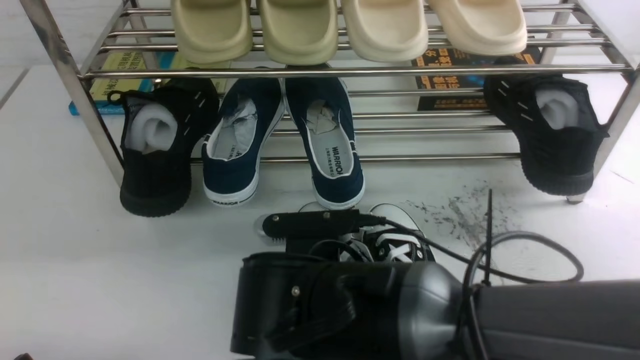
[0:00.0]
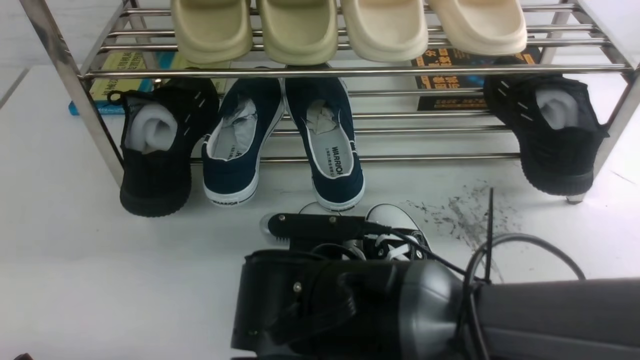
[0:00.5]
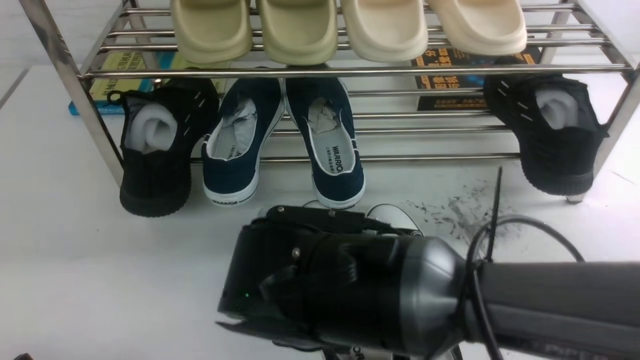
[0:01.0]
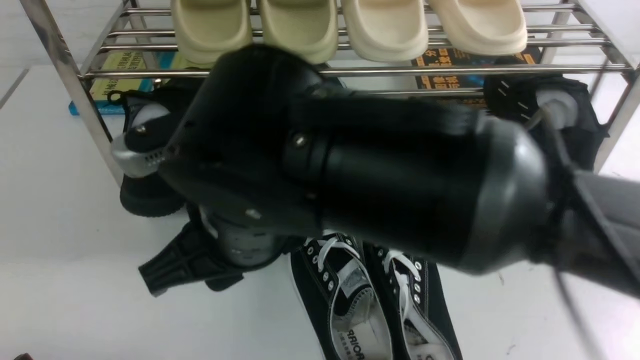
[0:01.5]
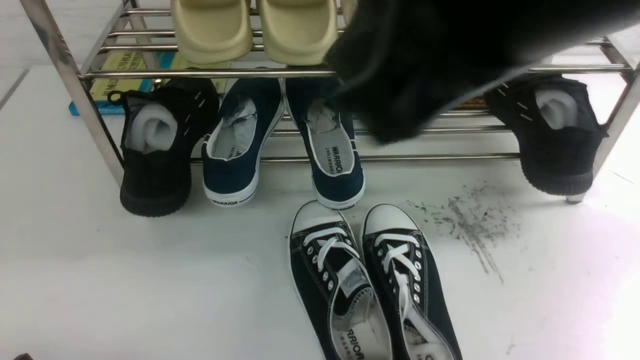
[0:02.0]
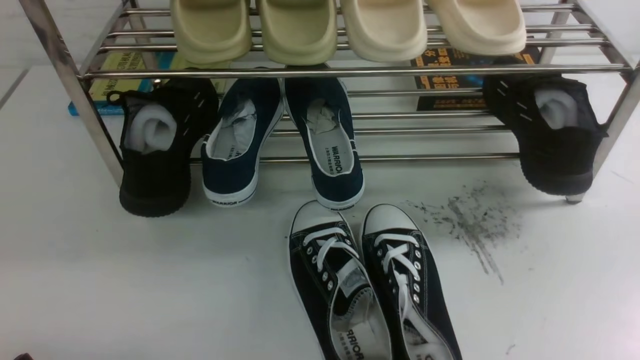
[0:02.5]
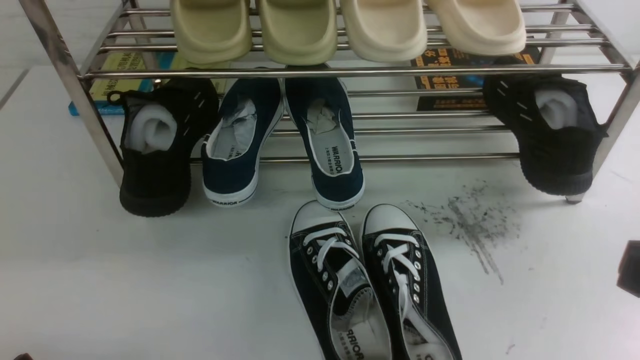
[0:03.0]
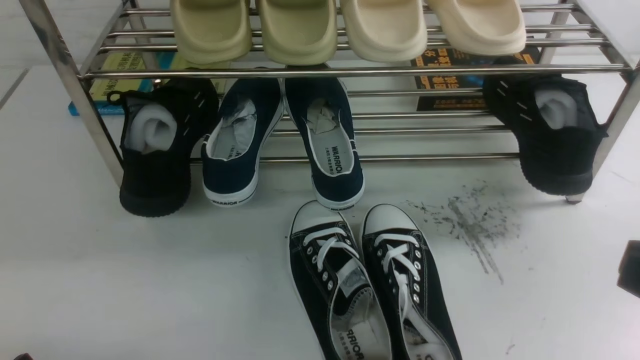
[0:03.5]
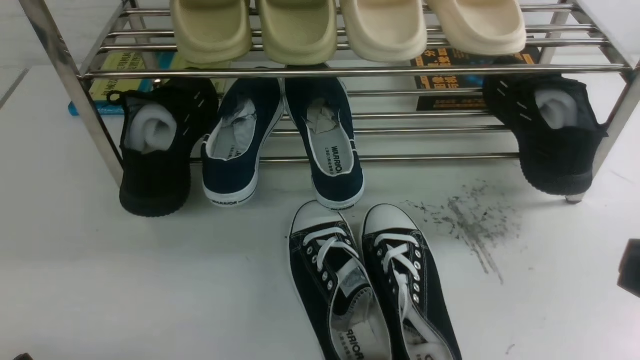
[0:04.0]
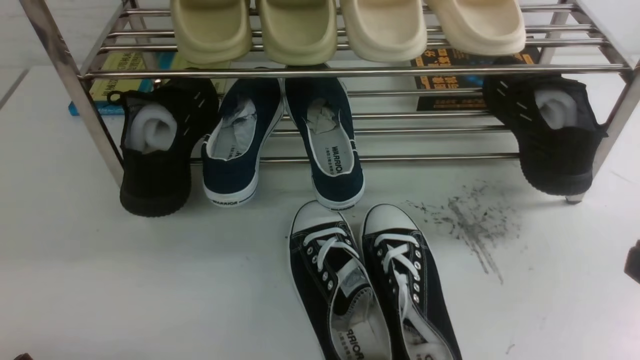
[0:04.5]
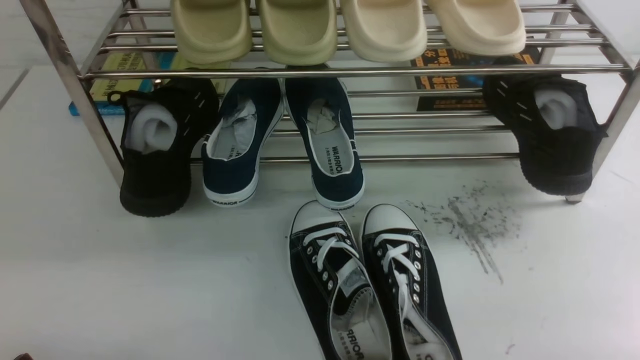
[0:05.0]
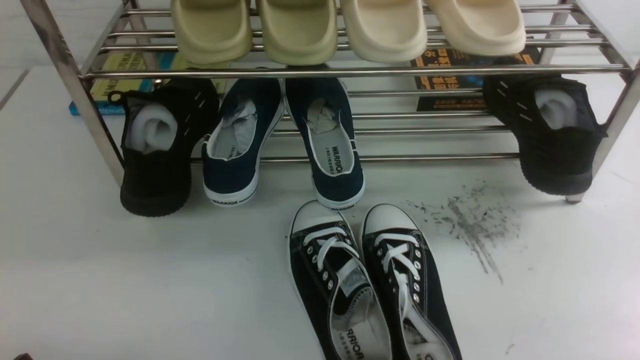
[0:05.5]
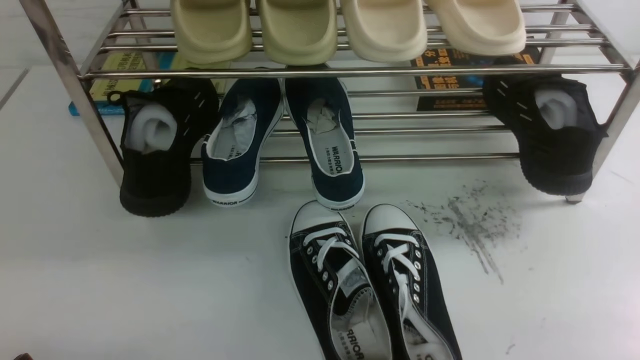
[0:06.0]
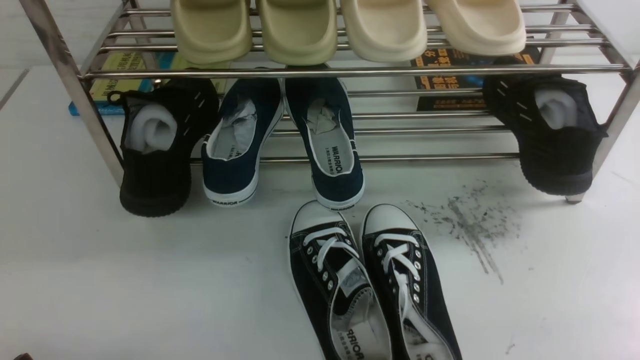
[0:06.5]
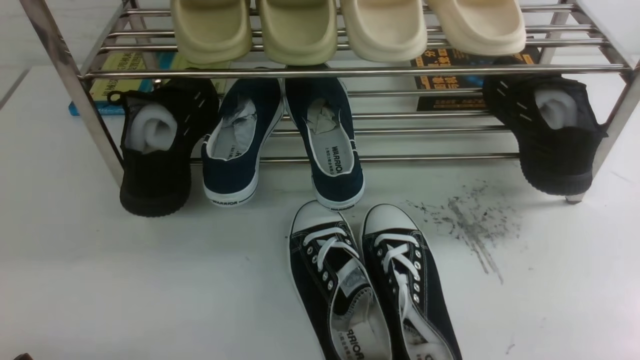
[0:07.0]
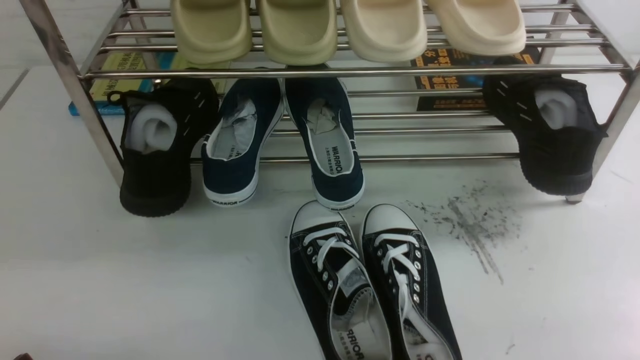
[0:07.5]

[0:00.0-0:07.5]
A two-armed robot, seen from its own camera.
0:00.0 to 0:02.0: The right gripper moves upward and to the right, approximately 35 cm, and opens and closes again.
0:02.0 to 0:04.0: The right gripper moves downward, to the right and backward, roughly 20 cm.
0:05.5 to 0:07.5: The two grippers keep their place.
